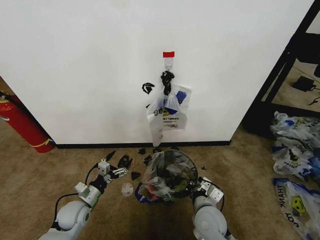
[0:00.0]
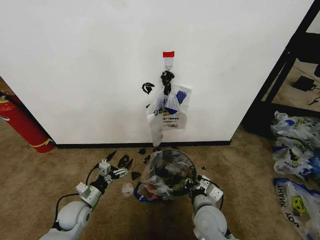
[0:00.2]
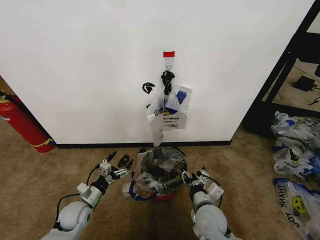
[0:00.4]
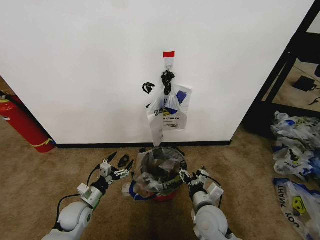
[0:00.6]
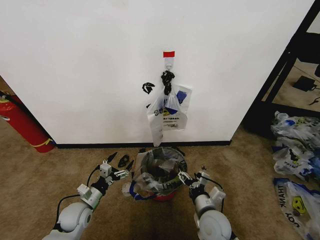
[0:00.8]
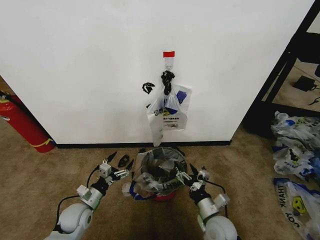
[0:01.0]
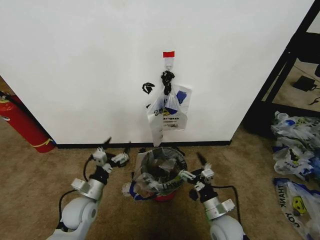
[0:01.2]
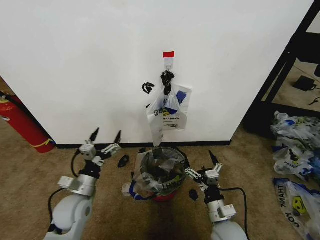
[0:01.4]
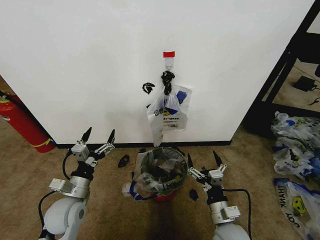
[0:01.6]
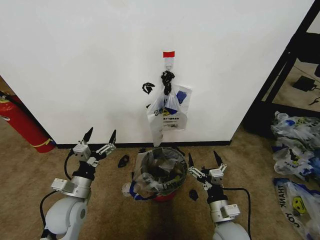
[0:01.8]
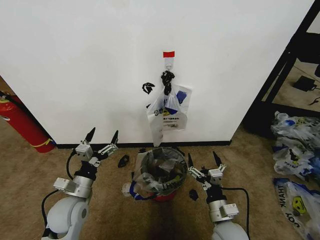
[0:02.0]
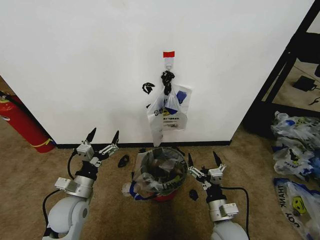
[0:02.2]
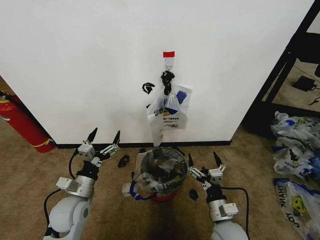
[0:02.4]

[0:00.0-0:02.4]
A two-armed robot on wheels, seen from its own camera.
Task of the whole recording: Pick up the garbage bag from the wall and place it over the trash bin.
0:00.0 to 0:01.2: The right gripper is displaced to the right and downward by approximately 10 cm, and opens its fingers.
0:01.2 to 0:02.4: The right gripper changes place by some 5 cm. The left gripper moves upward, approximately 5 cm.

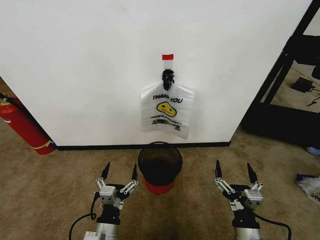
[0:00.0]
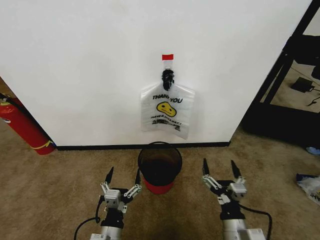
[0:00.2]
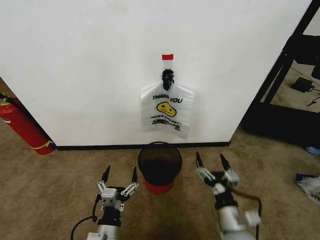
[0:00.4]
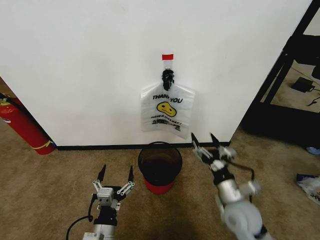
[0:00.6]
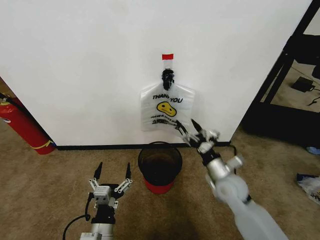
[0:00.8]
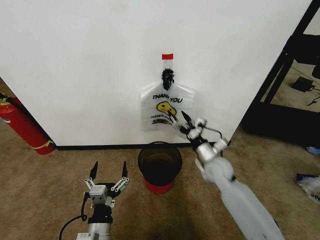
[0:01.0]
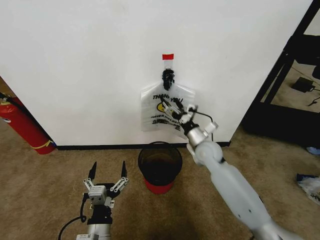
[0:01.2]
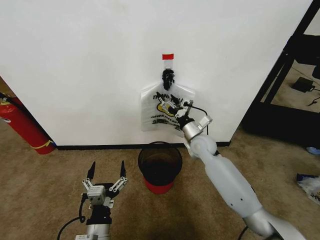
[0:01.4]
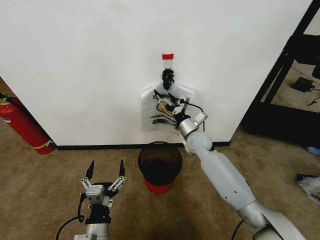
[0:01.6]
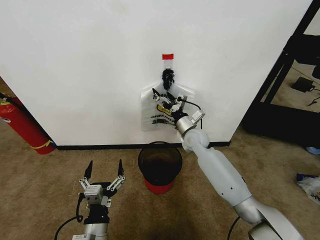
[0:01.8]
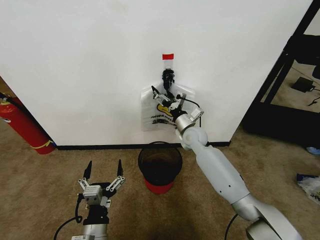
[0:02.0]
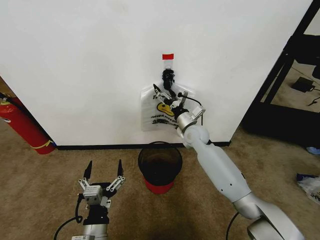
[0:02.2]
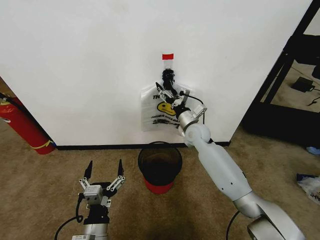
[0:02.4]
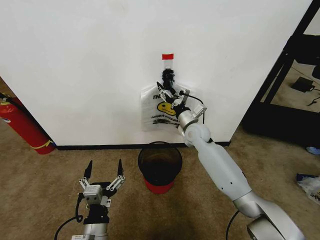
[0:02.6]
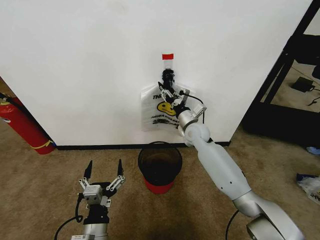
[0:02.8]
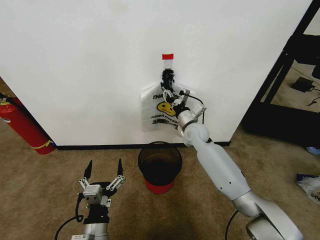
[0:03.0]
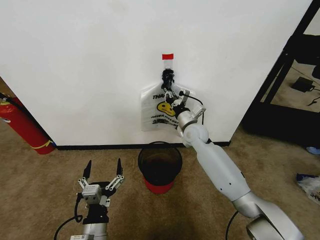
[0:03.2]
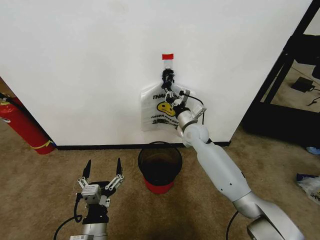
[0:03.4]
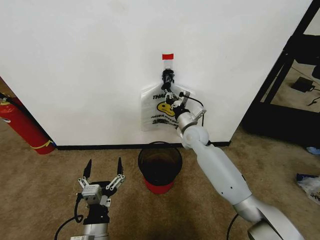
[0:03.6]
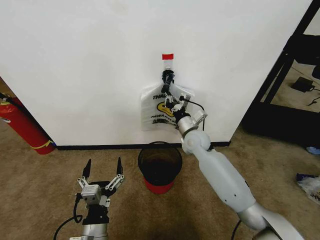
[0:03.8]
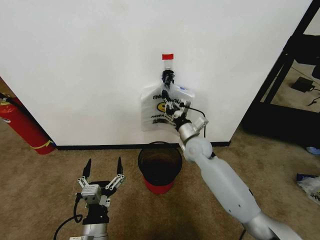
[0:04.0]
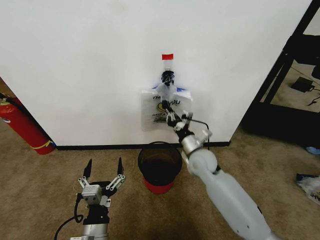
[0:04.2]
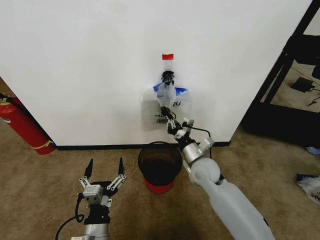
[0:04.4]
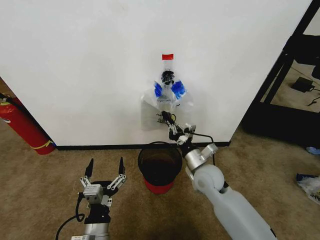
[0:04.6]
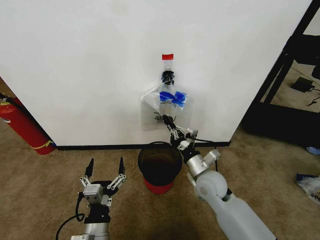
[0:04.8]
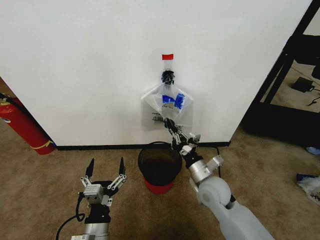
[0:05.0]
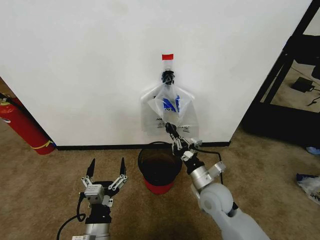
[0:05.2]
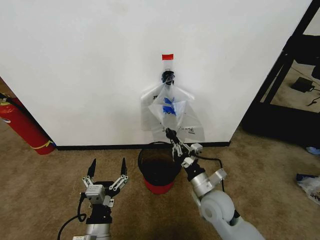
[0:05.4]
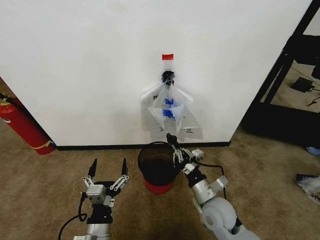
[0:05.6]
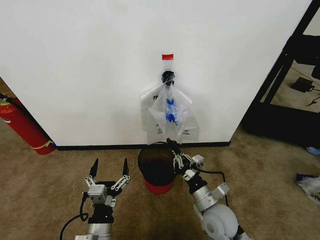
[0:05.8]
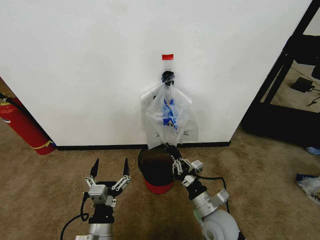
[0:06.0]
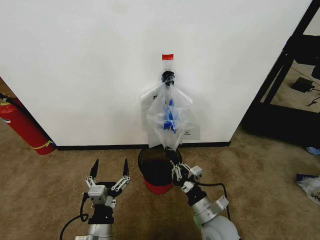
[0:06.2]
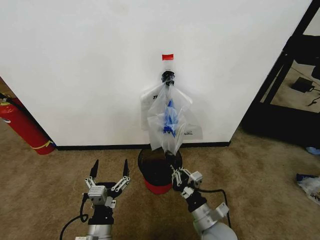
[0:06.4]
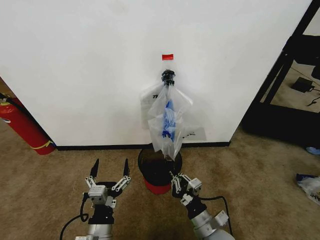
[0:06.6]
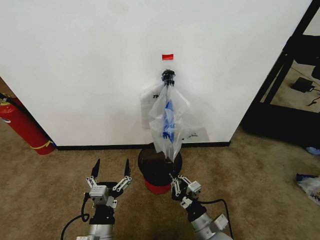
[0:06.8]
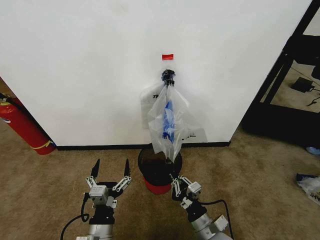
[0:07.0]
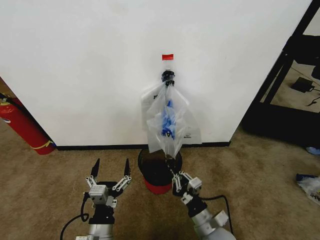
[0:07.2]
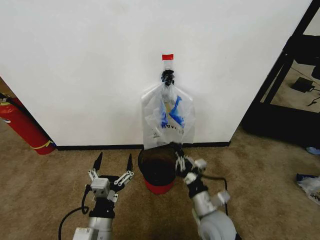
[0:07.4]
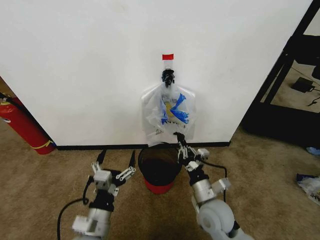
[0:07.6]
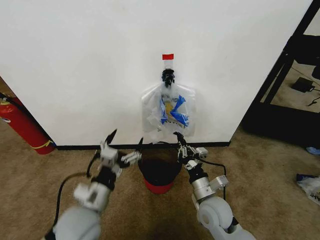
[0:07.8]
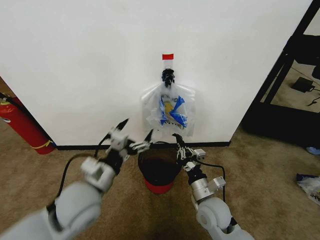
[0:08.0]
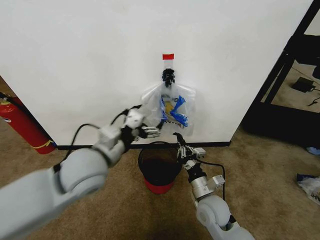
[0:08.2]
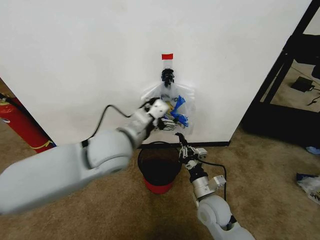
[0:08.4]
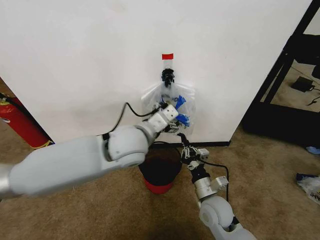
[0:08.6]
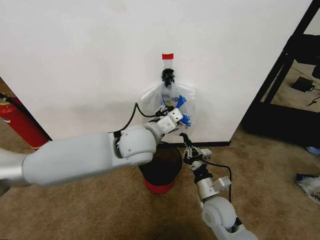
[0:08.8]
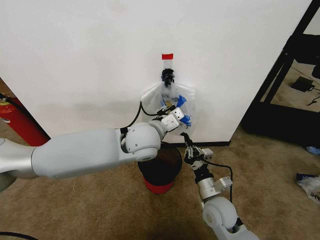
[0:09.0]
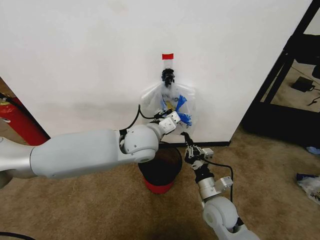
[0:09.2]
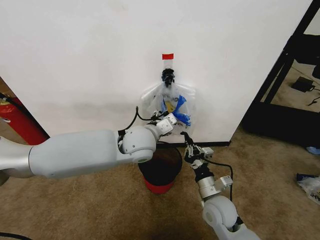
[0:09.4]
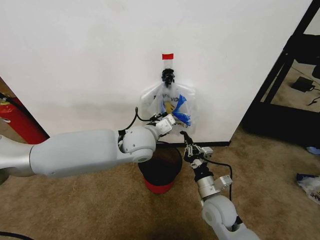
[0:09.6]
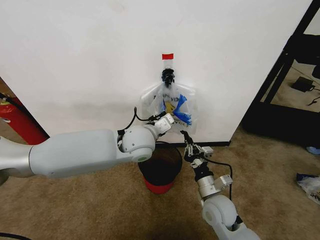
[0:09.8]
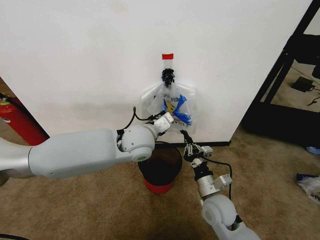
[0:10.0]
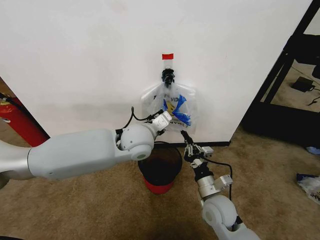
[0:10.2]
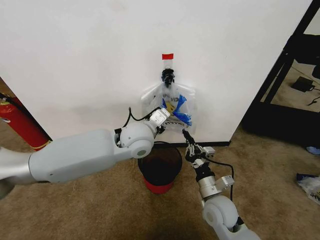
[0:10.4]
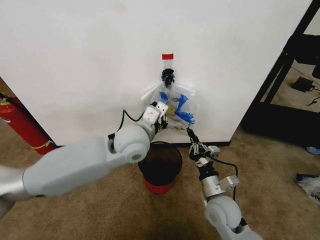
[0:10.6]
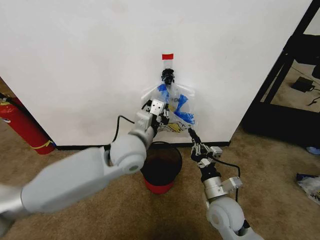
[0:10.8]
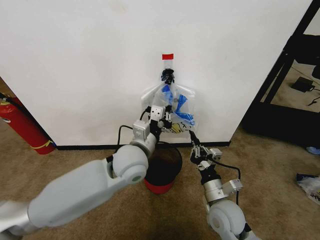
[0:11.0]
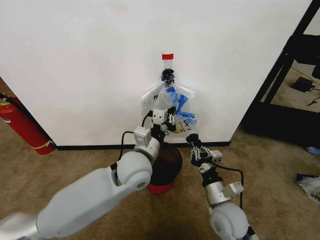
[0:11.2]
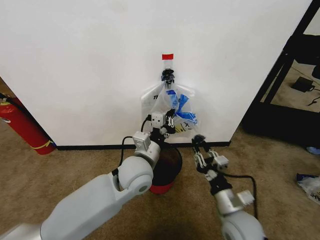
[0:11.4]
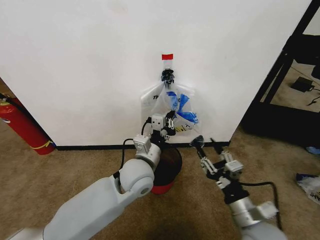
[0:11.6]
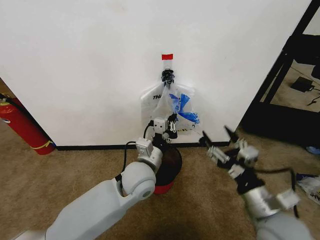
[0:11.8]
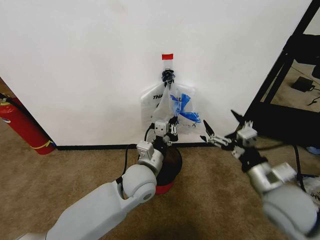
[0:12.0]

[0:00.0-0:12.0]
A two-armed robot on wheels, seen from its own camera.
Task of the whole recording: Pick up the garbage bag from the wall and place it over the trash bin.
0:01.6 to 0:03.0: The right gripper closes its fingers.
0:03.0 to 0:04.4: The right gripper is displaced backward by approximately 15 cm.
0:04.4 to 0:06.0: The right gripper shifts some 15 cm backward.
0:06.0 to 0:07.6: The right gripper goes backward and returns, roughly 5 cm each way.
0:07.6 to 0:09.0: The left gripper shifts roughly 30 cm forward, upward and to the right, and closes up.
0:09.0 to 0:10.4: The left gripper closes up.
0:10.4 to 0:12.0: The left gripper is displaced downward and backward by about 15 cm, while the right gripper is displaced upward and to the right by approximately 15 cm, and opens.

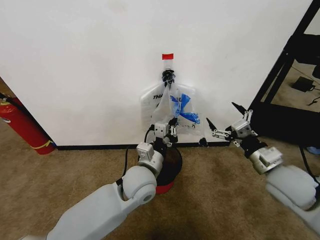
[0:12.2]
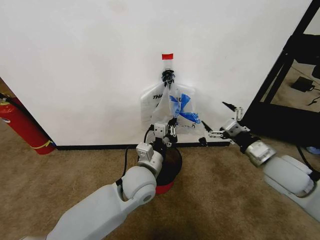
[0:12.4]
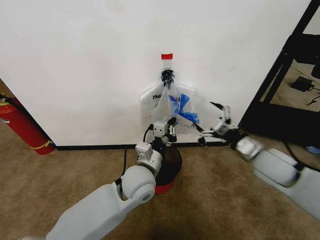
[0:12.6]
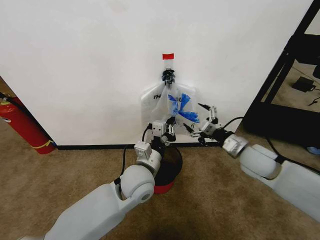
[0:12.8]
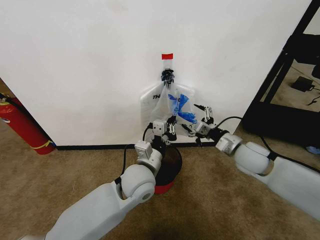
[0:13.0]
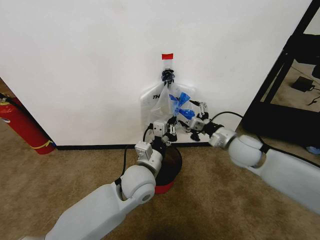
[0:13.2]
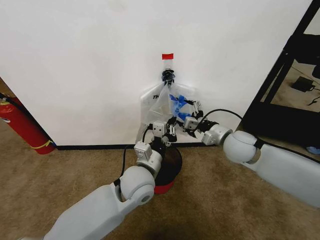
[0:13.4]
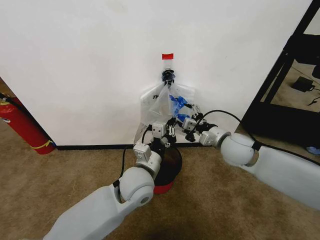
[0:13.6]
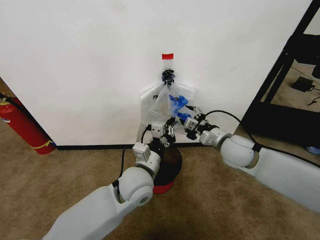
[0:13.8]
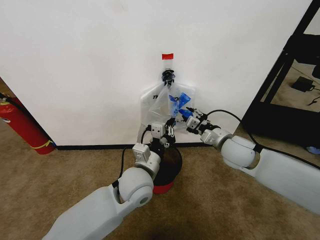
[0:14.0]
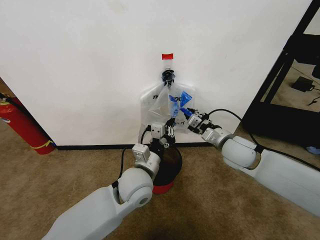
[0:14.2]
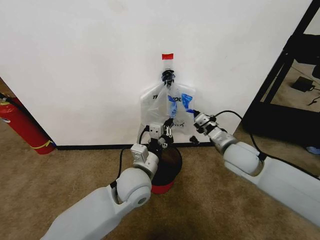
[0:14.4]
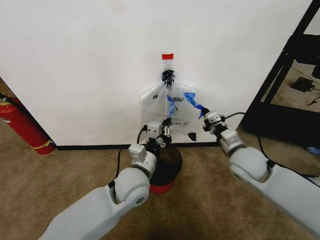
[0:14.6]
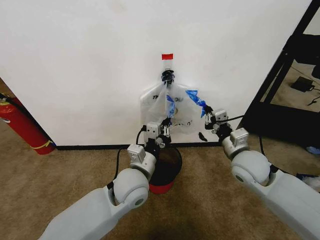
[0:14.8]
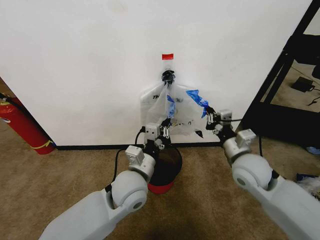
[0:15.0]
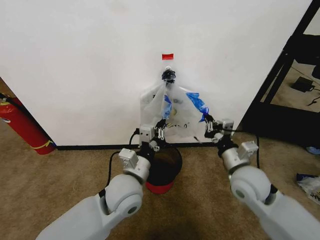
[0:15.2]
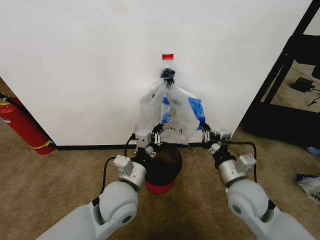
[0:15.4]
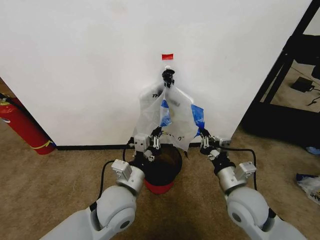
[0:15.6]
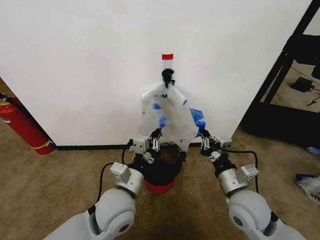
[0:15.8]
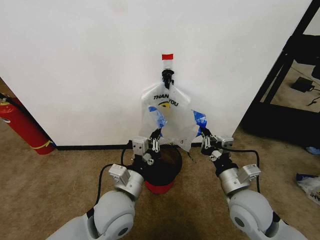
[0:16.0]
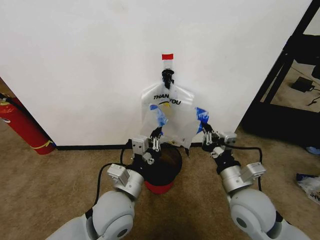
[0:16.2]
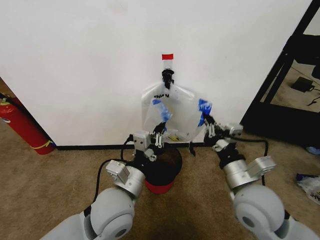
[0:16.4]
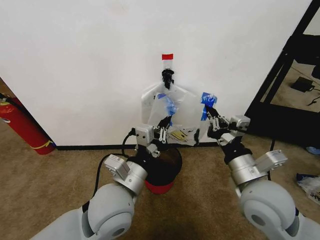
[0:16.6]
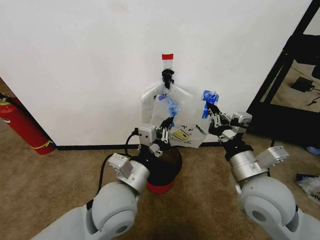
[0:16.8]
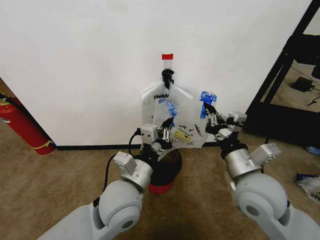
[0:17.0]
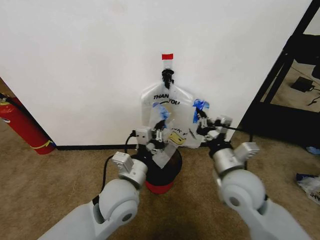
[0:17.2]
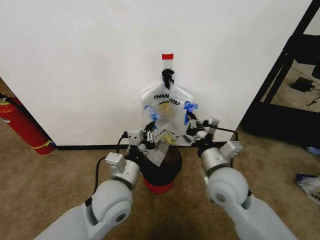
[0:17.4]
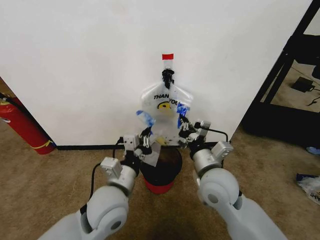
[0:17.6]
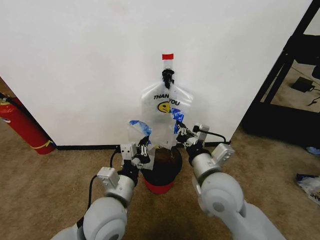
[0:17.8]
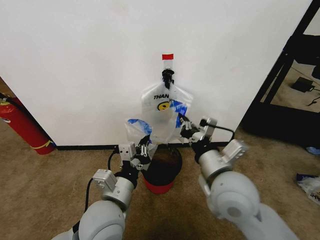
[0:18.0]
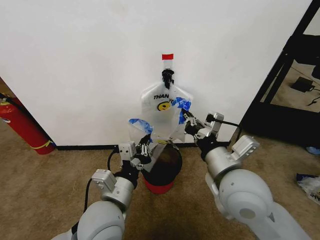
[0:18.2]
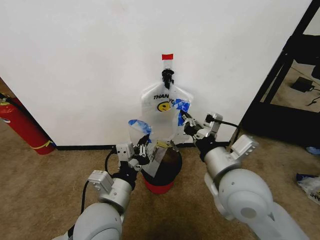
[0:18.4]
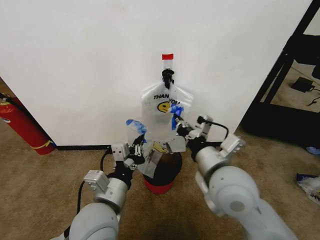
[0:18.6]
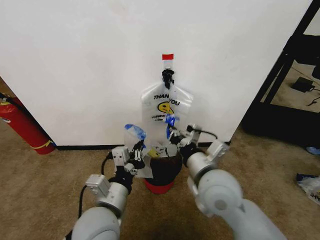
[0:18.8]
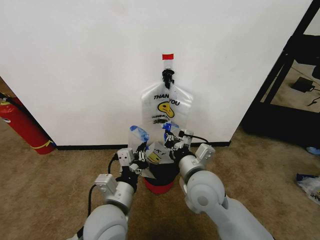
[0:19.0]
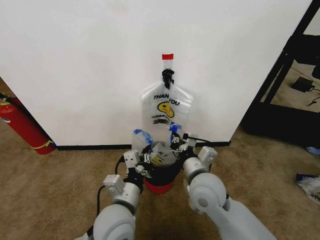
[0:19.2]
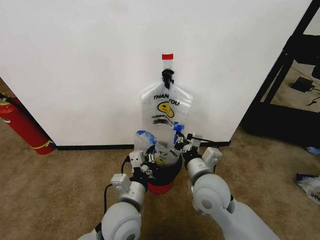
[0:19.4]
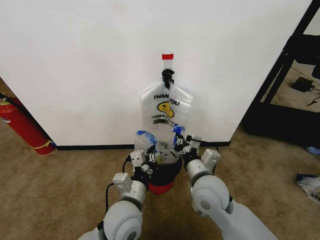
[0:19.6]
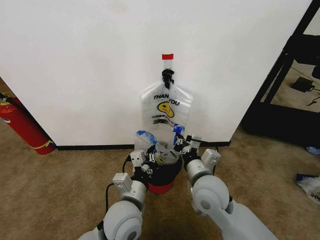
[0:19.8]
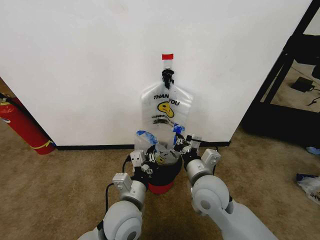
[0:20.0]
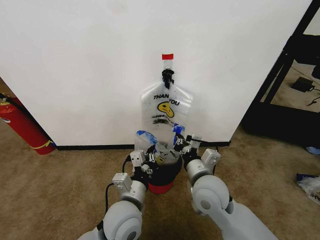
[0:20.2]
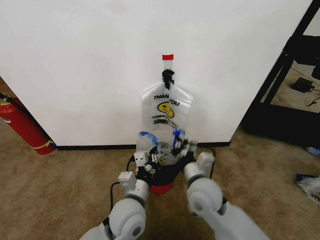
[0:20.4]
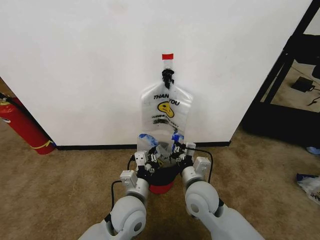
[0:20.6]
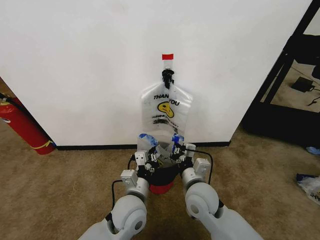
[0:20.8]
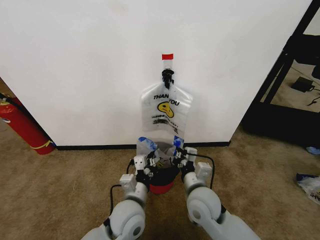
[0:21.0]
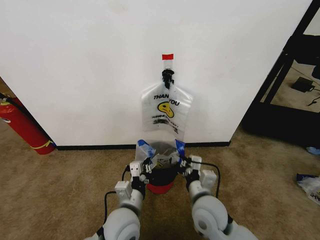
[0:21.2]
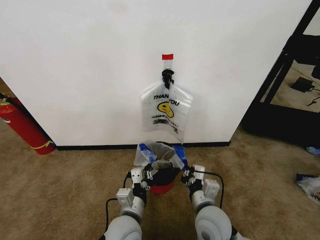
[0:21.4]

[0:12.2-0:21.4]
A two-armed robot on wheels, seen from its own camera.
Task of the whole recording: Pick up the garbage bag from the wall and place it over the trash bin.
0:12.2 to 0:13.8: The right gripper heads forward and to the left, covering roughly 15 cm.
0:13.8 to 0:15.2: The right gripper heads backward, covering approximately 10 cm, and closes.
0:15.2 to 0:16.8: The left gripper ends up roughly 5 cm from where it was, while the right gripper shifts some 10 cm upward and backward.
0:16.8 to 0:18.4: The right gripper shifts some 5 cm to the left, while the left gripper moves about 5 cm.
0:18.4 to 0:19.8: The grippers both shift downward by some 10 cm.
0:19.8 to 0:21.4: The right gripper moves downward and backward, some 10 cm. The left gripper goes some 5 cm downward.
